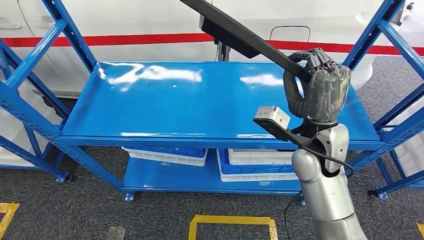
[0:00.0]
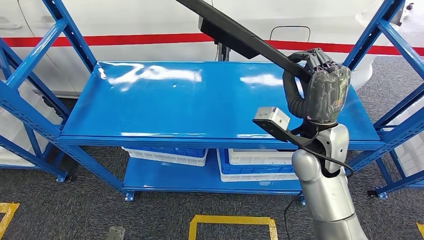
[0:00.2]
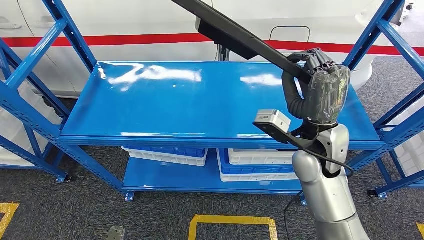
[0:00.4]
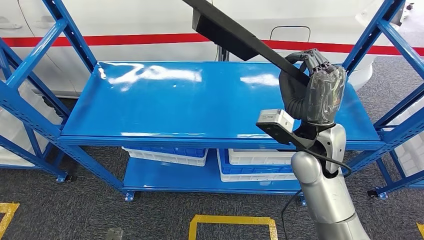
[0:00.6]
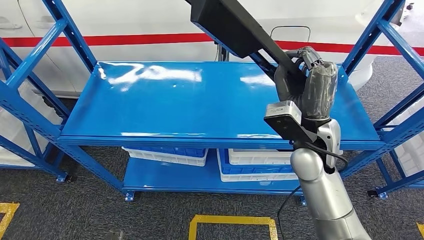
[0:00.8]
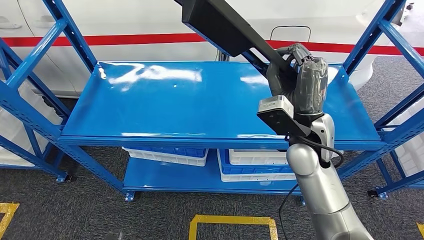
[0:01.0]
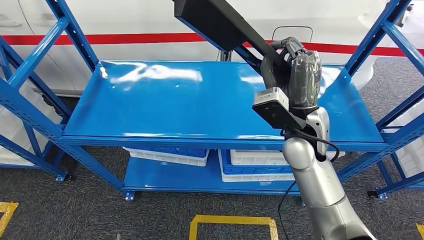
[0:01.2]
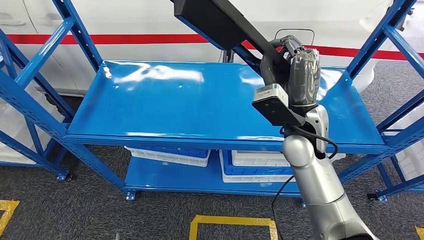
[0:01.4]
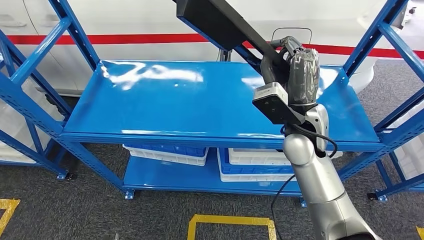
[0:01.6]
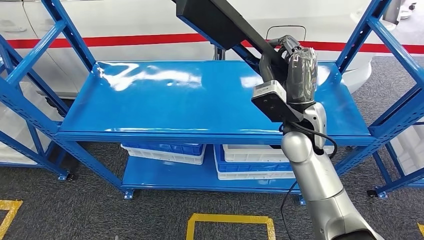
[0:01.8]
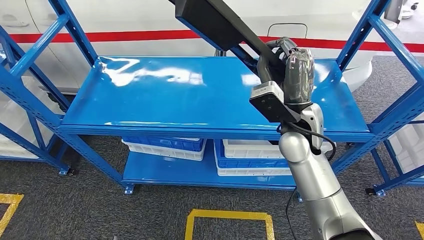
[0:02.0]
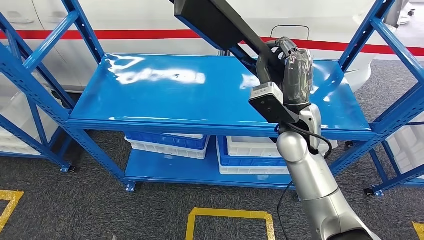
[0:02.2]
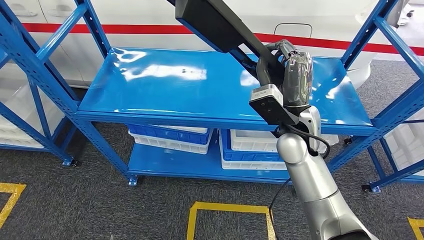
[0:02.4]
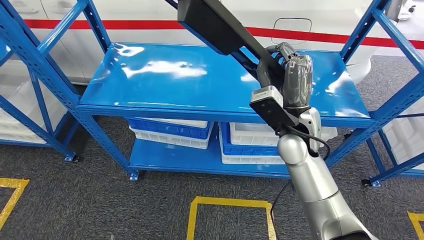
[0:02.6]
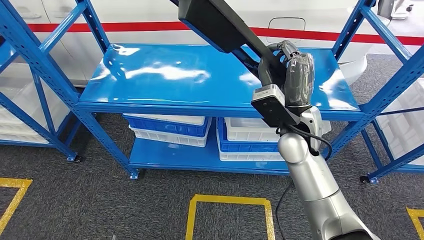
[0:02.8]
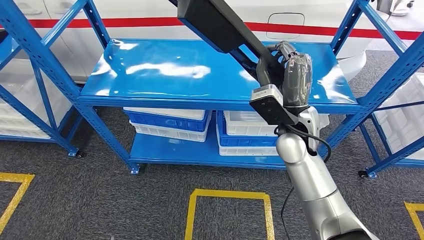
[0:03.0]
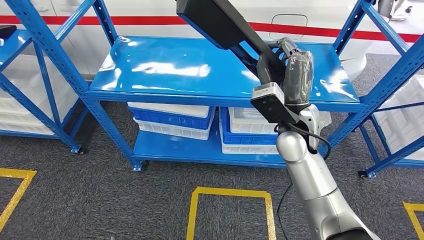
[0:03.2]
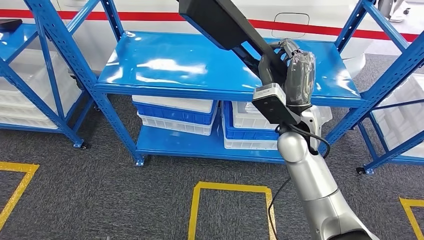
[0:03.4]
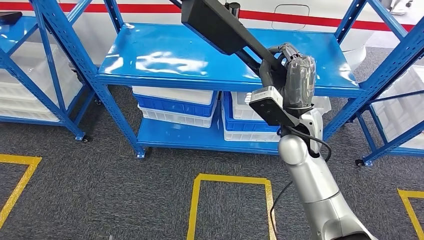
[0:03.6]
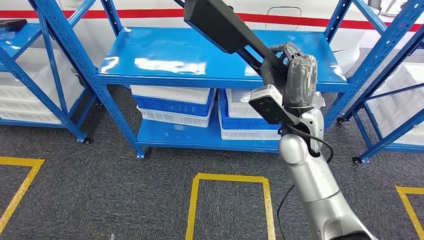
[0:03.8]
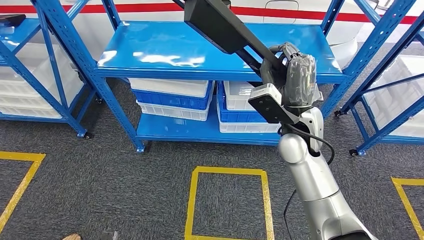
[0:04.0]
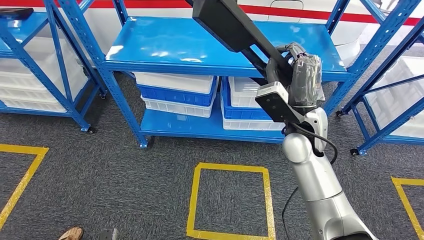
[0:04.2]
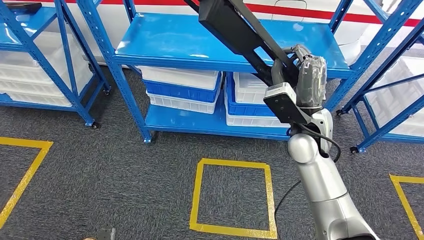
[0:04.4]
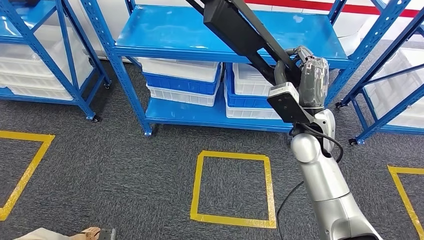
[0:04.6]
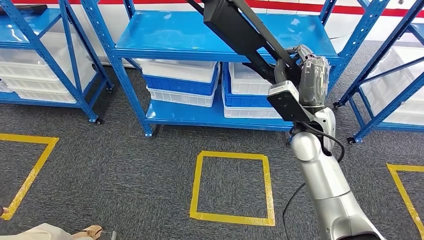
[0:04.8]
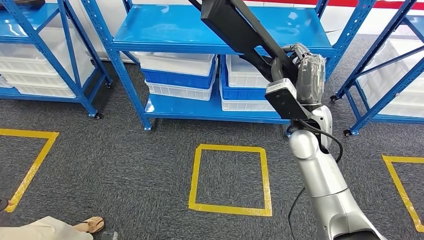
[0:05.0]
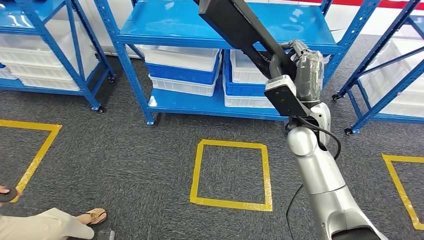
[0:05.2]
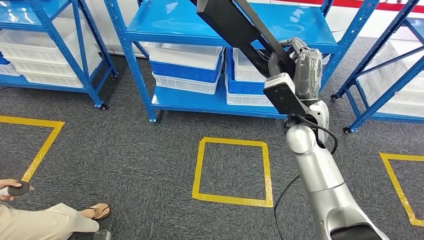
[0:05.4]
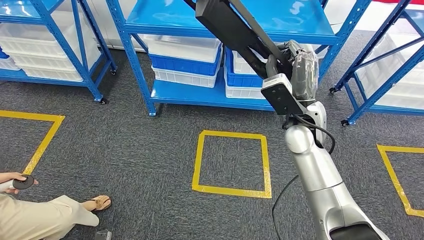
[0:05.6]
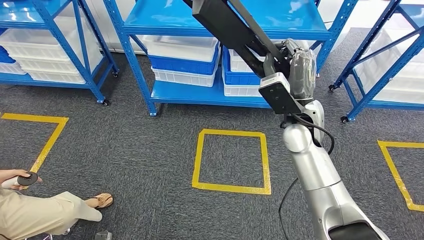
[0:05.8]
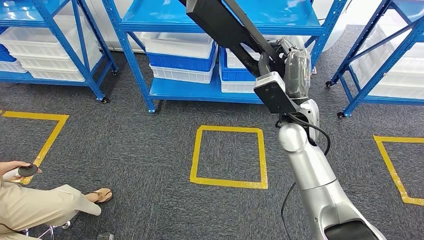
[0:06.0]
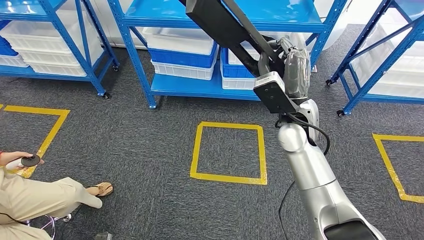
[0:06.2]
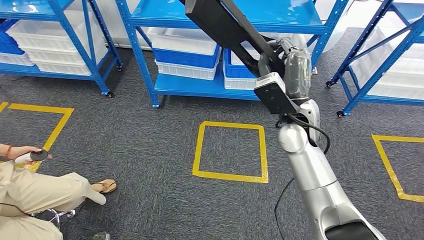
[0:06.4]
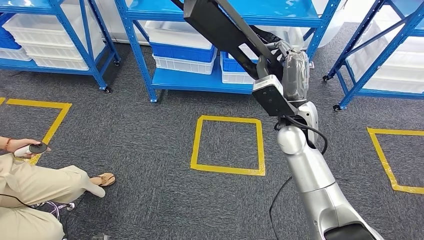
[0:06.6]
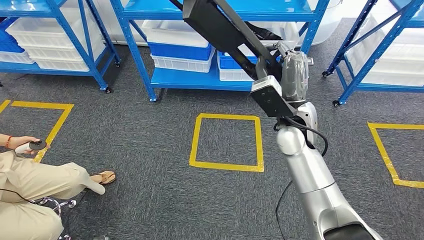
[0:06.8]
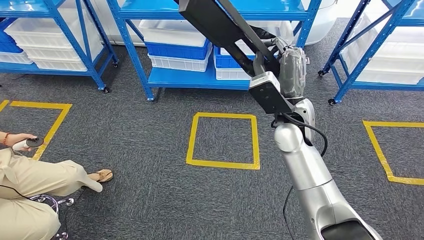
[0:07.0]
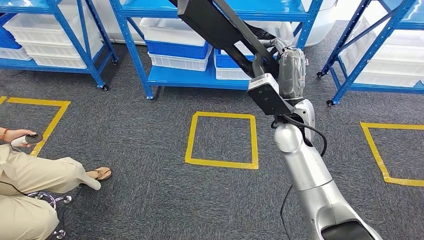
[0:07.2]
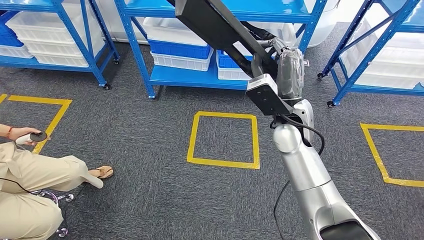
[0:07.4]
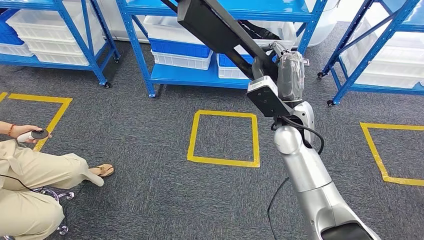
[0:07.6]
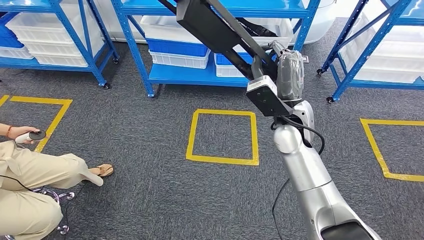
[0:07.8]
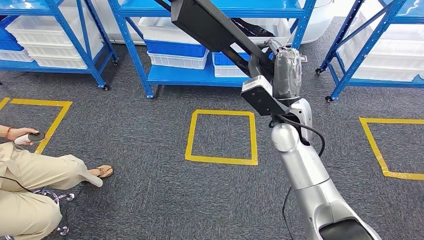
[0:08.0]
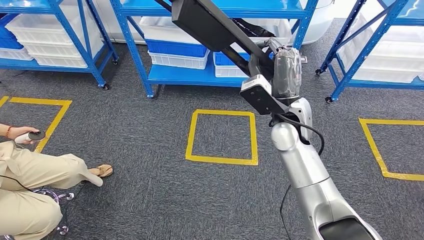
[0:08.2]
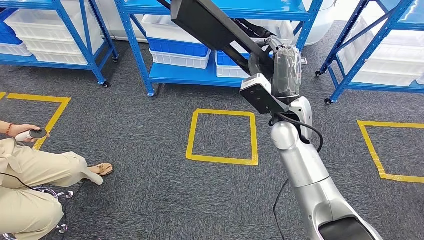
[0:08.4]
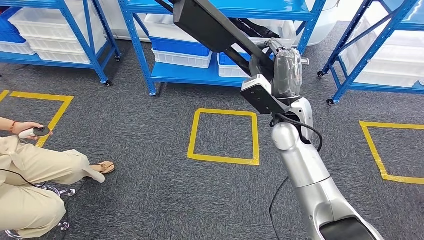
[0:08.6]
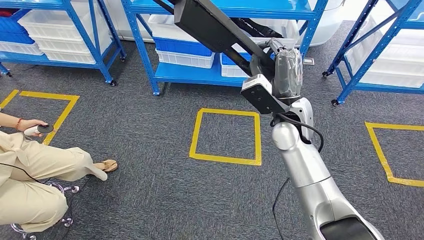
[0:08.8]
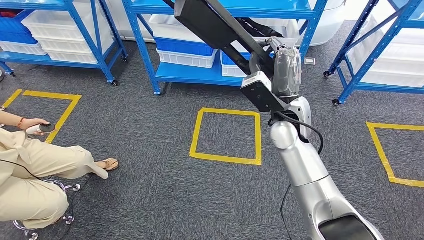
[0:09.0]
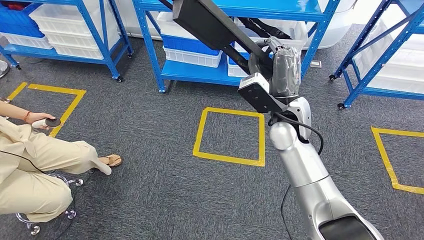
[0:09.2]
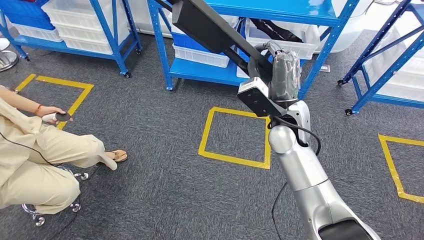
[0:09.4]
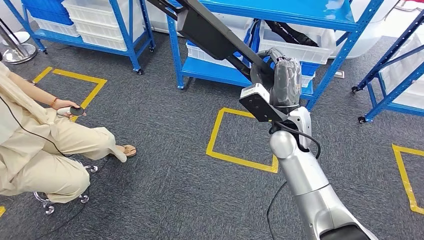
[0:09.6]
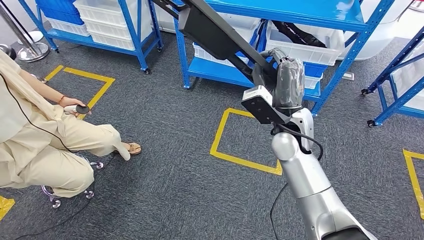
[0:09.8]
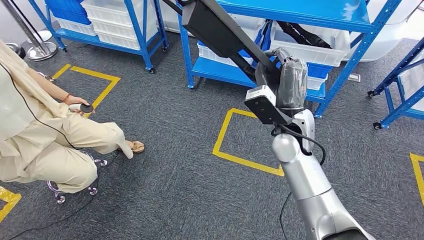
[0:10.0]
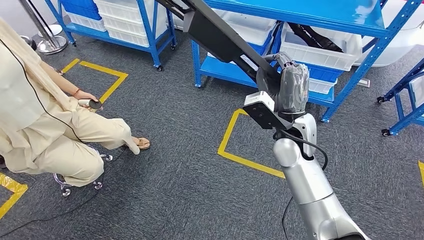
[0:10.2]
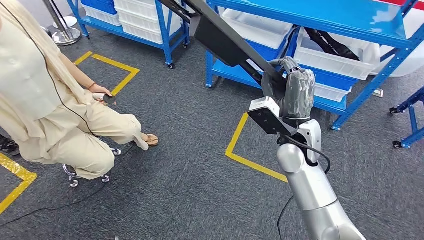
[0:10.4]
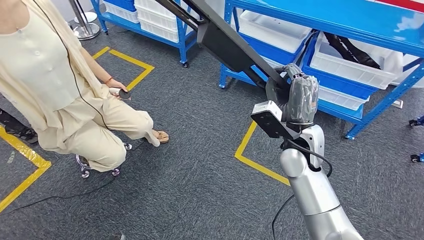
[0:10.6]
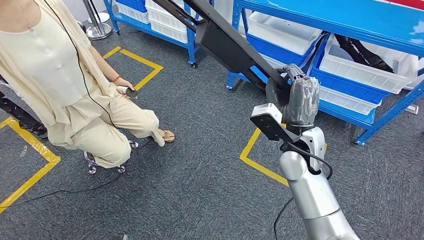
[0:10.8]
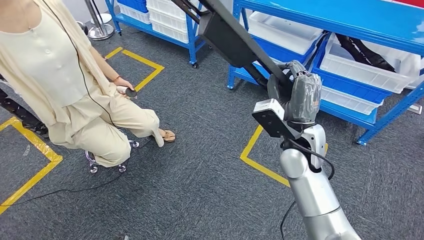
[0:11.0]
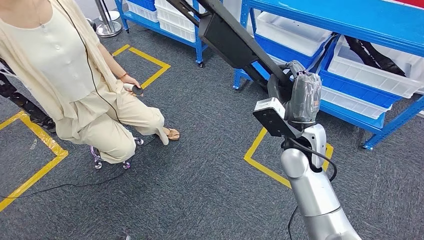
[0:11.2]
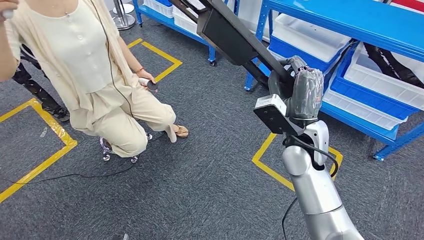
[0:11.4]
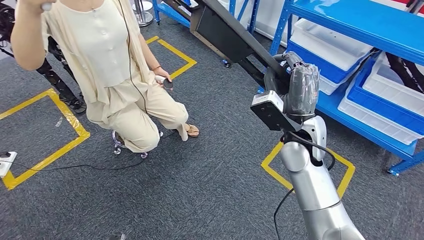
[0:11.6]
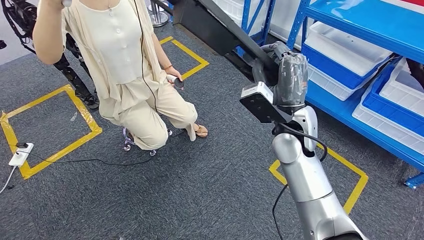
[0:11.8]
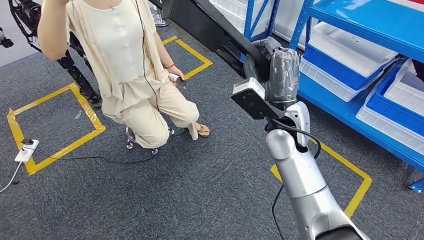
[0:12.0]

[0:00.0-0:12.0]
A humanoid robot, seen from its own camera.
Step, 0:00.0 to 0:04.0: Pick up the large material from the shelf.

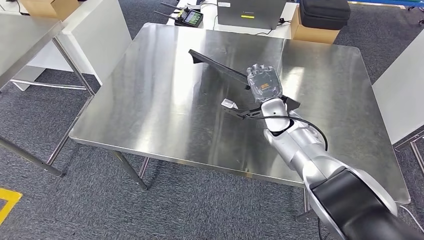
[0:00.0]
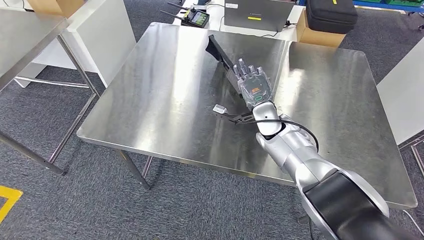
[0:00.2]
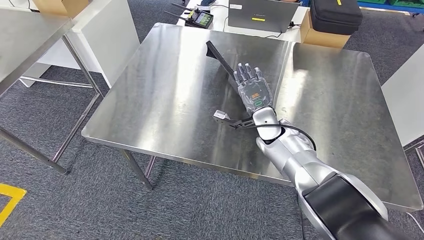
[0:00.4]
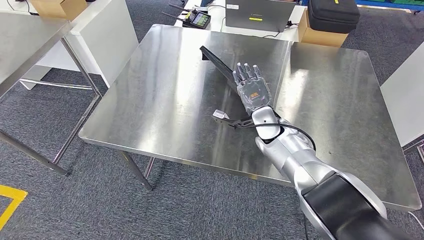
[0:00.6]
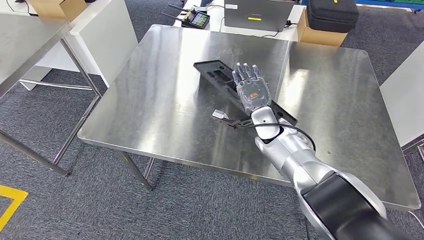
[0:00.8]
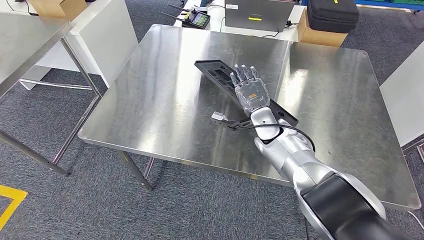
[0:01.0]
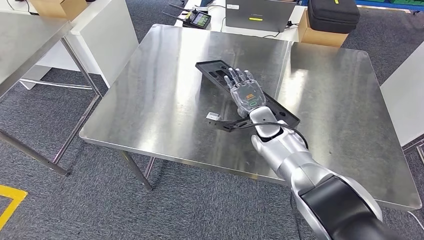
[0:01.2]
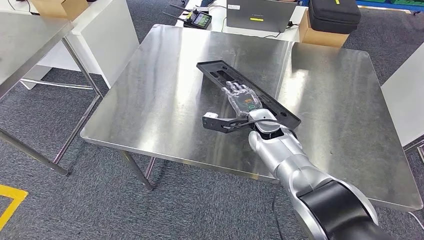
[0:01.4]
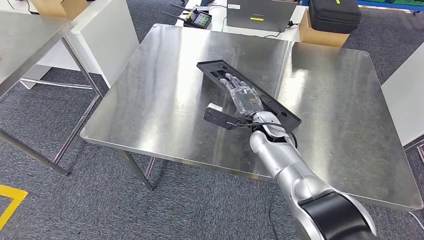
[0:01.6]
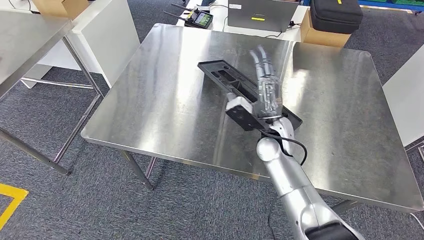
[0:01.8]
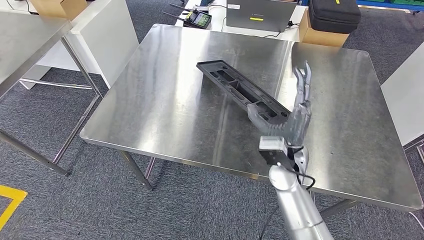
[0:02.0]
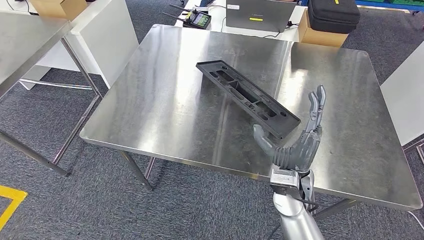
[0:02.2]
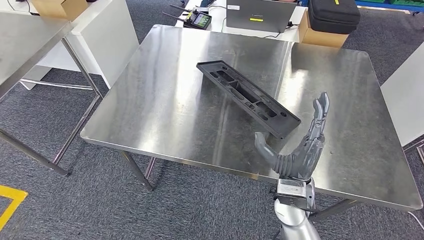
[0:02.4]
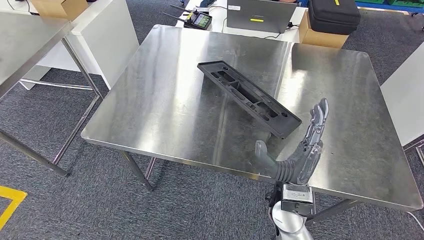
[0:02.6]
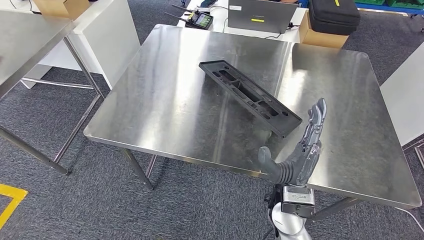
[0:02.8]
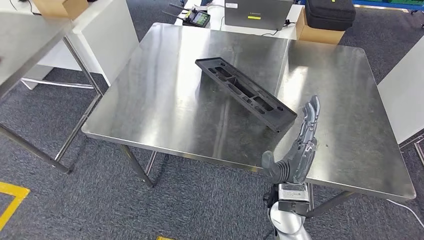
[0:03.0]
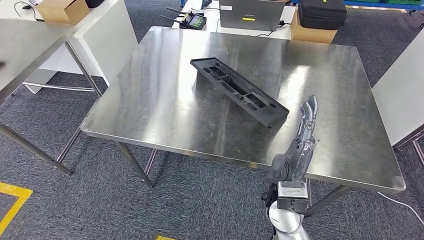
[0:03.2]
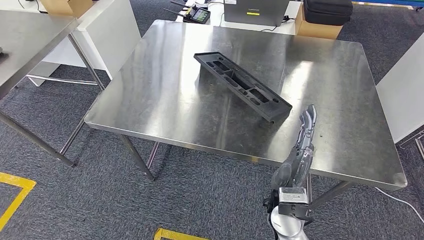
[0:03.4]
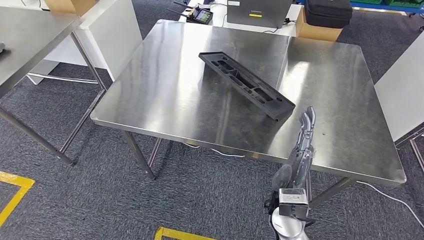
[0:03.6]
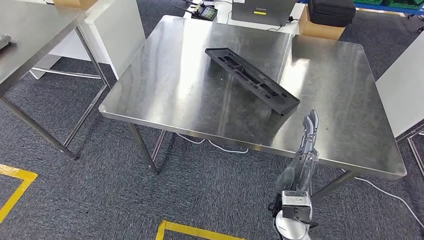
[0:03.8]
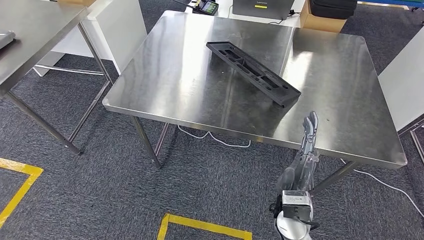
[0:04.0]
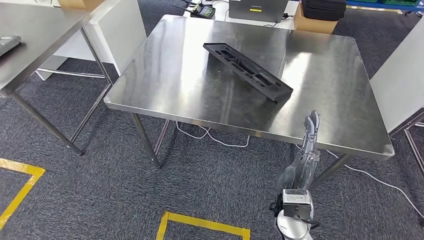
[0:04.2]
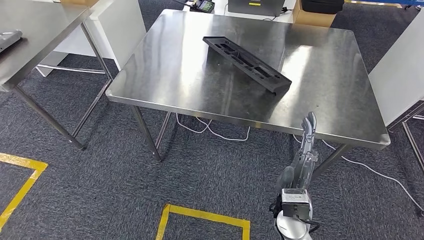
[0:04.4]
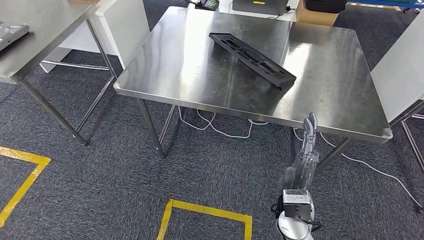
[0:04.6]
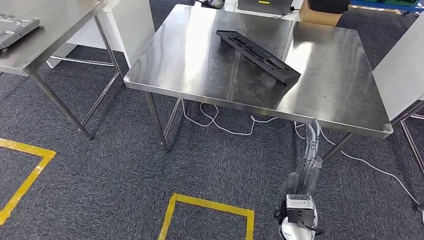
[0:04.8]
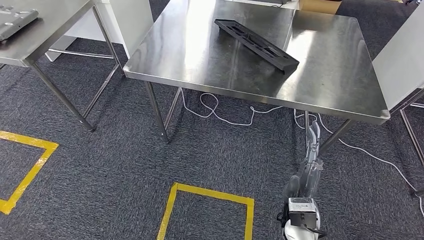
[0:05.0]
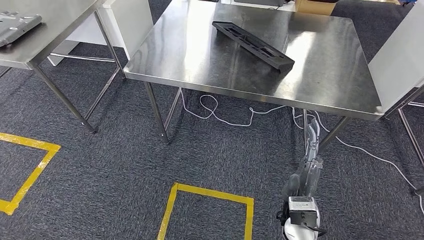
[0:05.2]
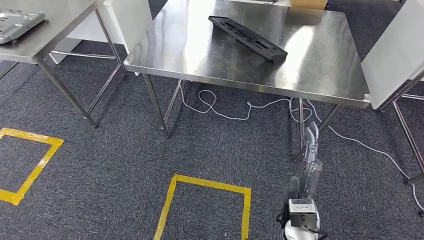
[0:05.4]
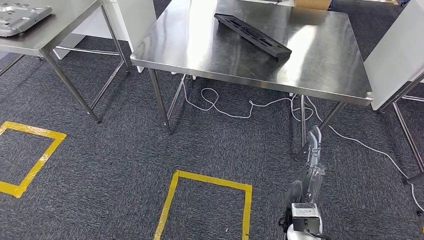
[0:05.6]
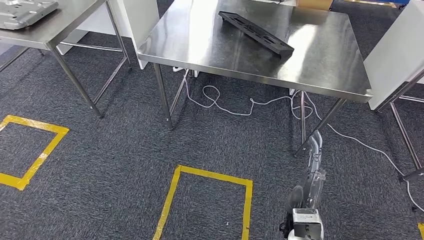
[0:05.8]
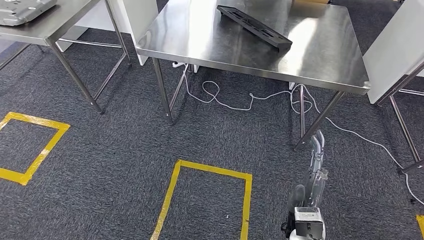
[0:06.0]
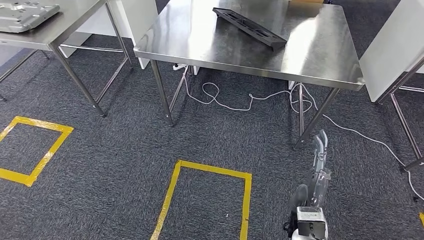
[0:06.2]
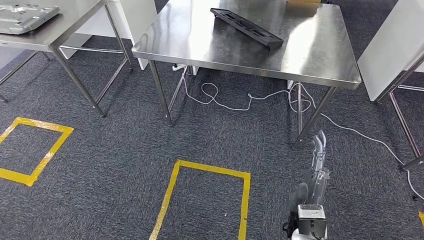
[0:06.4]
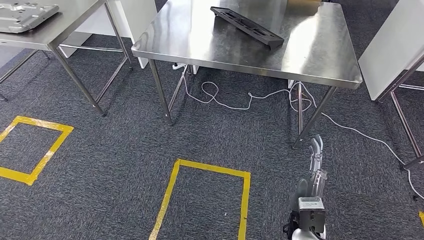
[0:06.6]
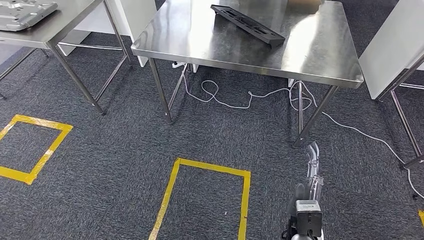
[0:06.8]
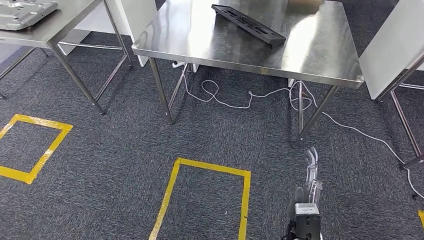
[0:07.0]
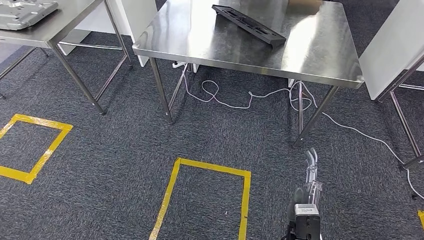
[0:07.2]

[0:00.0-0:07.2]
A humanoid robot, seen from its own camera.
0:01.4 to 0:02.8: The right hand goes roughly 20 cm backward.
0:05.8 to 0:07.2: The right hand changes place by roughly 5 cm.
